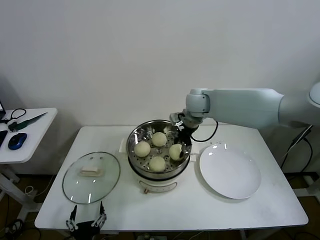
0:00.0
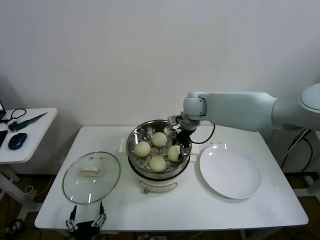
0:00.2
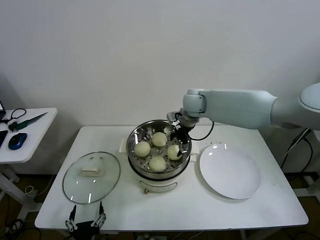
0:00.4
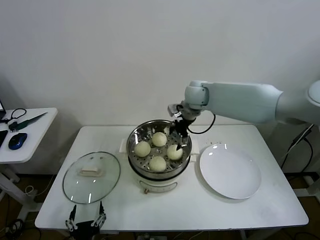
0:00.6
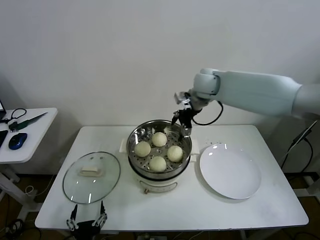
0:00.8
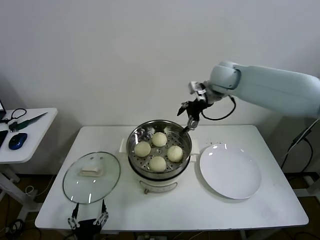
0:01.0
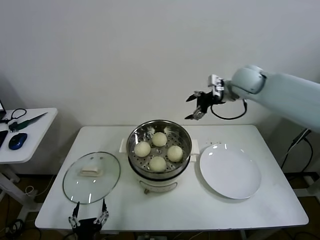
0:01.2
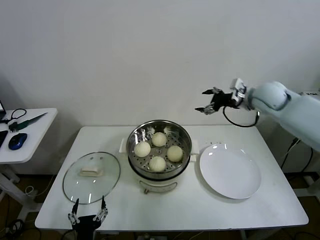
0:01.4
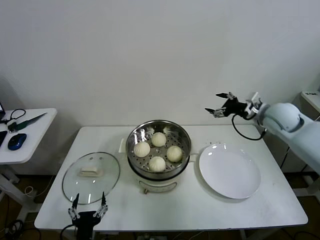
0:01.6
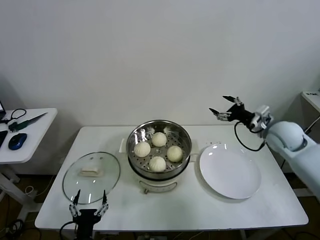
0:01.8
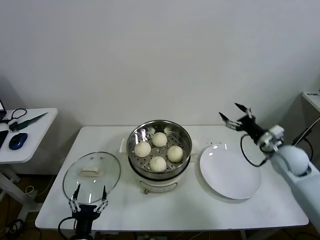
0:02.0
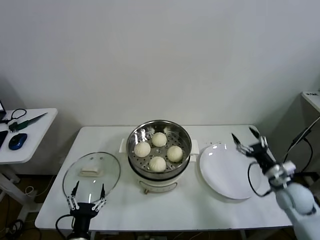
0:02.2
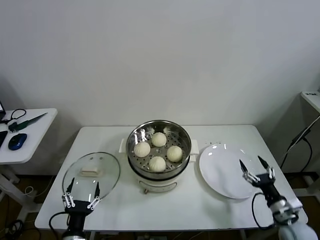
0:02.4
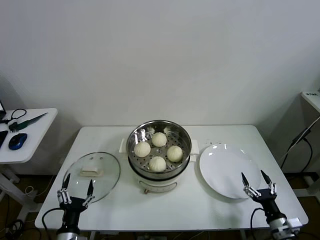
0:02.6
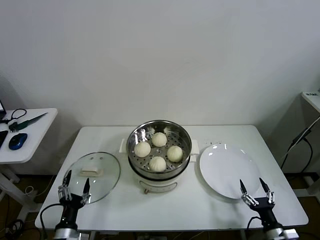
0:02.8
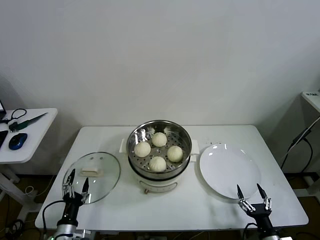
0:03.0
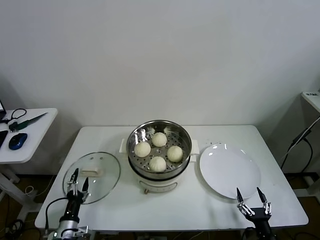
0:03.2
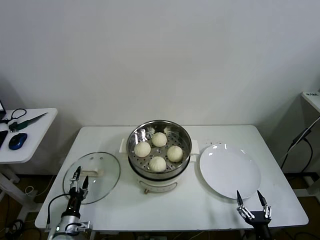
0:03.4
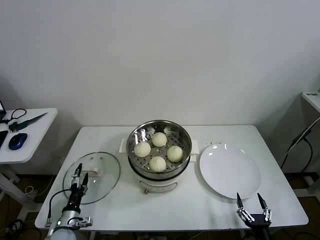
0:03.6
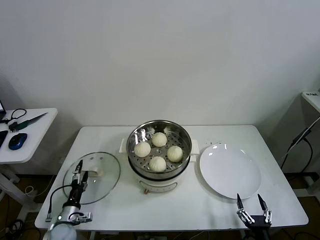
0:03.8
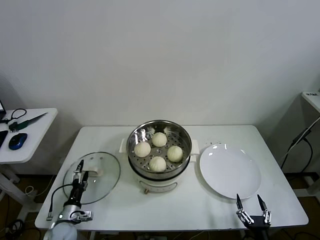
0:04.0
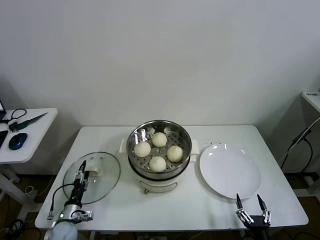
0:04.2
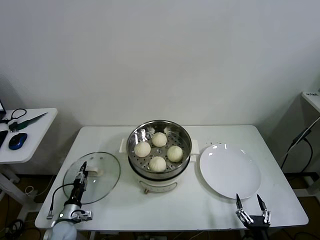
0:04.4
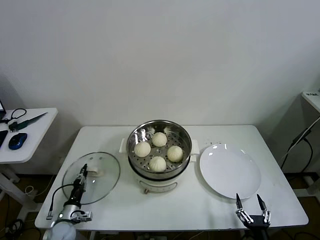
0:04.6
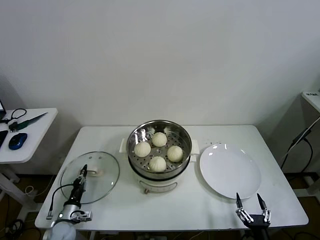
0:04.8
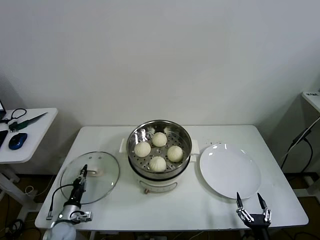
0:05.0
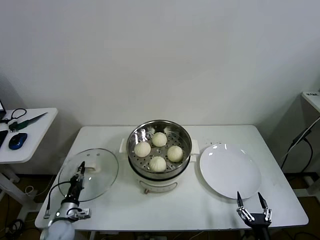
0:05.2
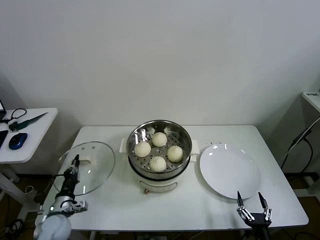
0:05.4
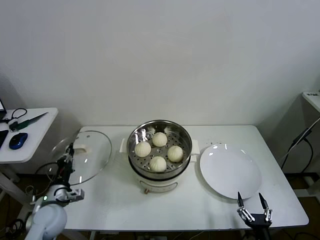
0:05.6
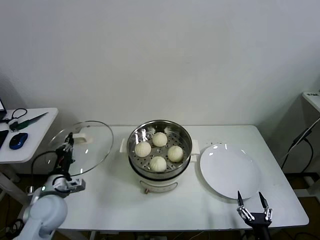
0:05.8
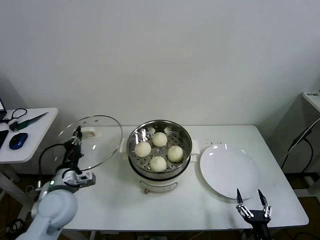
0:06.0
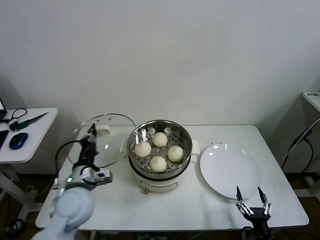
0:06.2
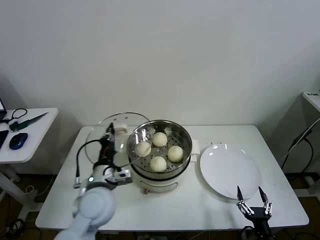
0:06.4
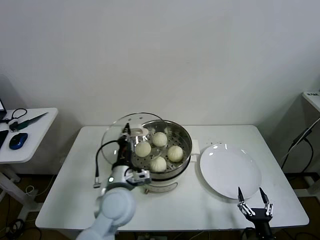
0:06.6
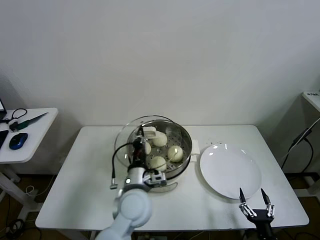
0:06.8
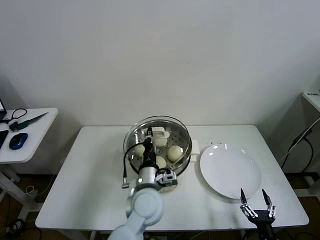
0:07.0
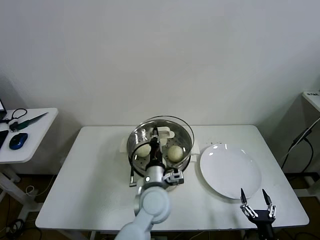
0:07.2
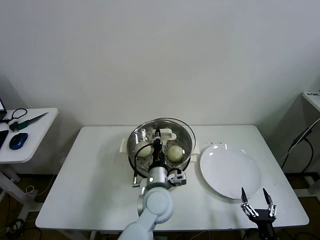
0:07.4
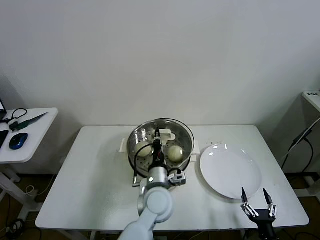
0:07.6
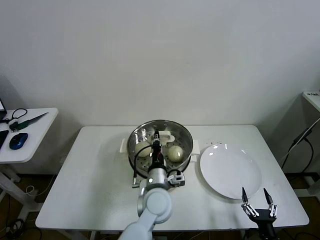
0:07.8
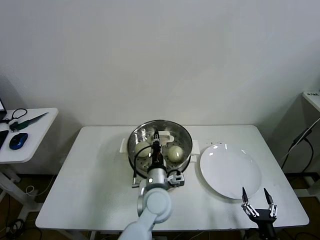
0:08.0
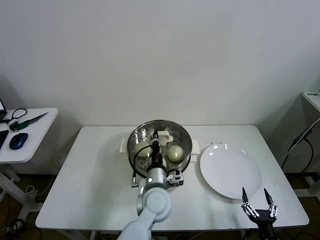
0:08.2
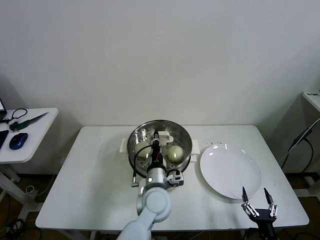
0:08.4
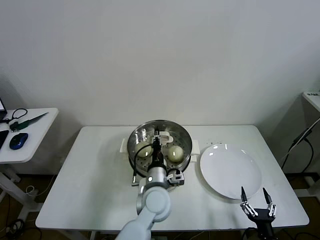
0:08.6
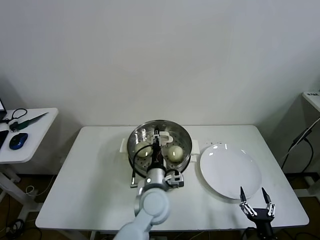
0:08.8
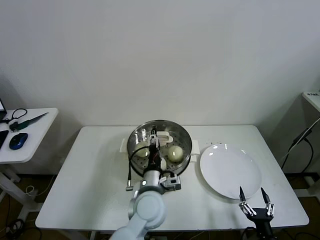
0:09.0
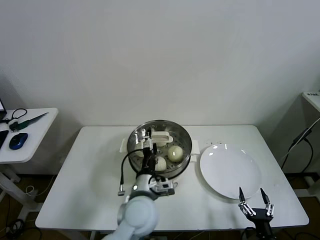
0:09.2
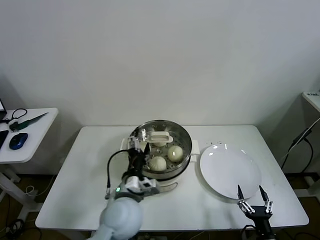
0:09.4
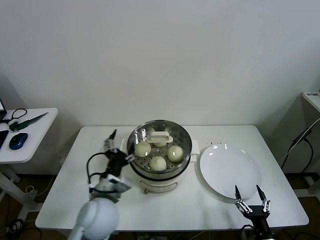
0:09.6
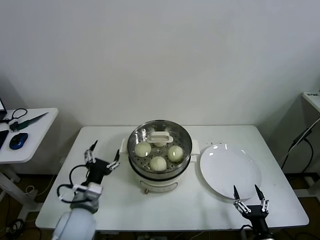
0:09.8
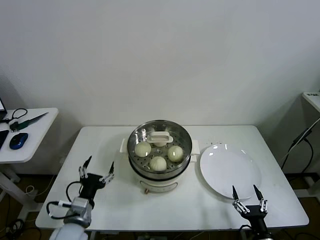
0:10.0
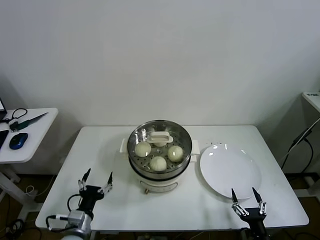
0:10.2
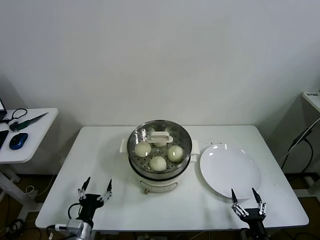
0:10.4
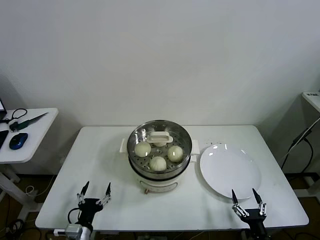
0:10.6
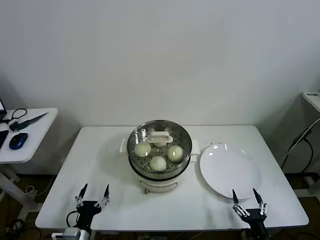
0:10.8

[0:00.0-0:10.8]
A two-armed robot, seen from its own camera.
Task of the whole recording: take steamed baozi put them in steamer then cover it.
Step, 0:00.6 to 0:04.6: Grasp the pot lid with left gripper.
Step, 0:04.8 to 0:08.6: Place the pot lid on the steamer with left gripper.
0:00.0 to 0:01.6: The right gripper heads to the right, covering approximately 25 cm, and opens.
0:01.6 to 0:03.0: The left gripper heads to the left, forward and downward, covering approximately 15 cm, while the right gripper goes approximately 50 cm backward and downward.
0:03.0 to 0:04.6: The left gripper travels forward, downward and to the left by approximately 10 cm, and closes, while the right gripper changes place by roughly 5 cm.
0:04.6 to 0:06.2: The left gripper goes some 30 cm upward and to the right.
0:06.2 to 0:07.8: The left gripper travels to the right by roughly 25 cm.
0:07.8 to 0:09.2: The left gripper ends up approximately 5 cm from where it was, and opens its fingers.
0:09.2 to 0:10.8: The left gripper moves to the left, downward and backward, roughly 30 cm.

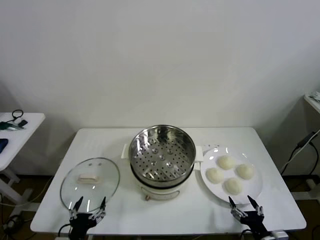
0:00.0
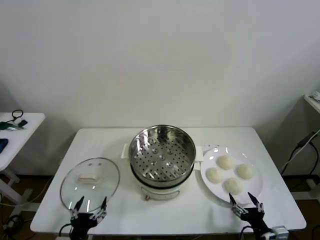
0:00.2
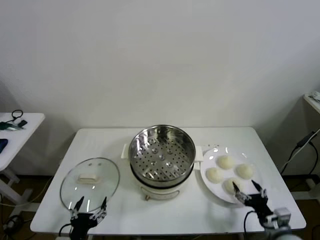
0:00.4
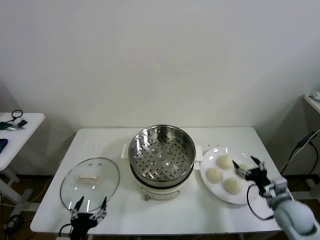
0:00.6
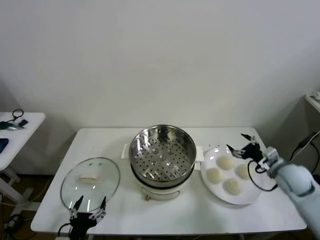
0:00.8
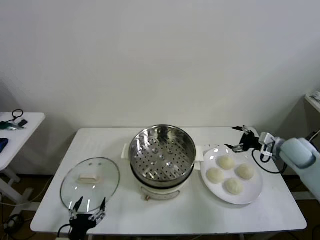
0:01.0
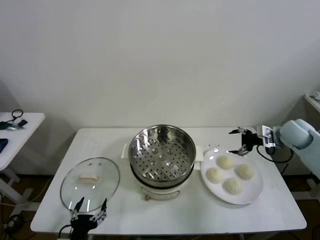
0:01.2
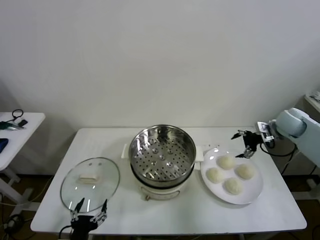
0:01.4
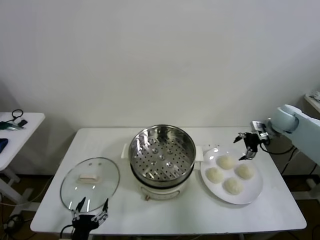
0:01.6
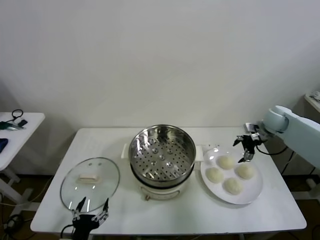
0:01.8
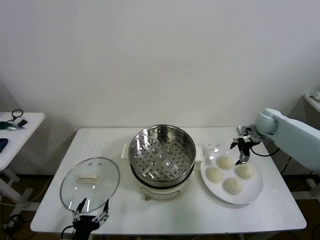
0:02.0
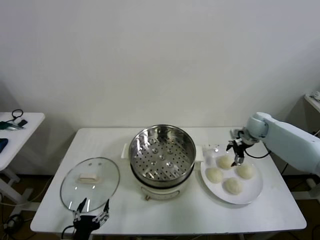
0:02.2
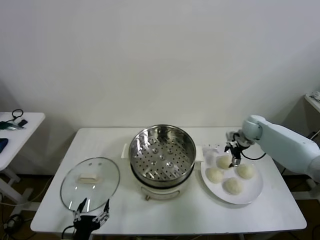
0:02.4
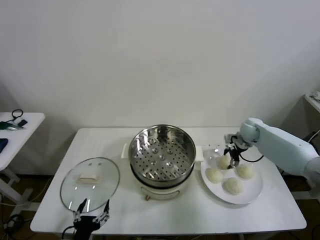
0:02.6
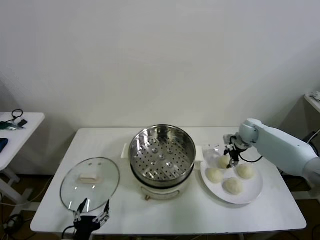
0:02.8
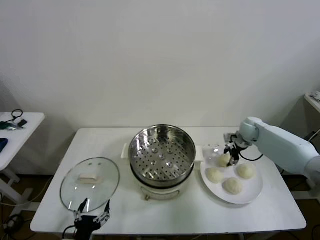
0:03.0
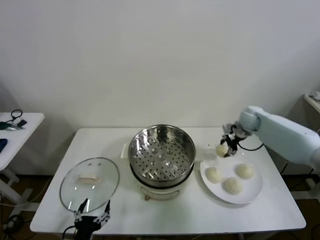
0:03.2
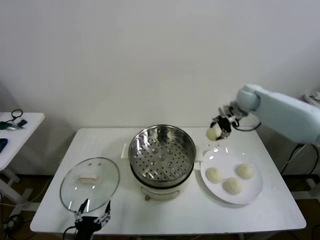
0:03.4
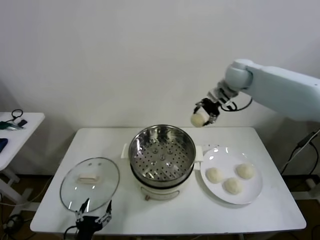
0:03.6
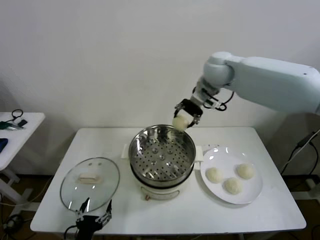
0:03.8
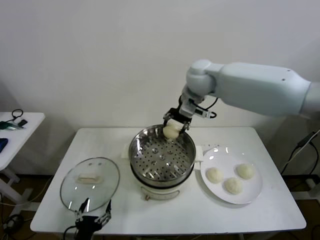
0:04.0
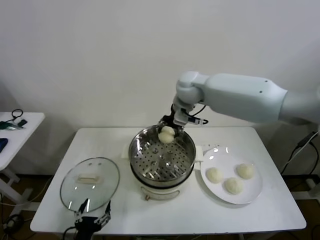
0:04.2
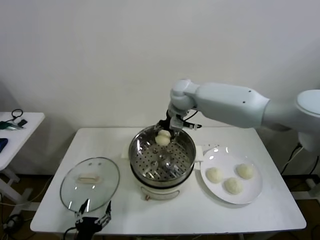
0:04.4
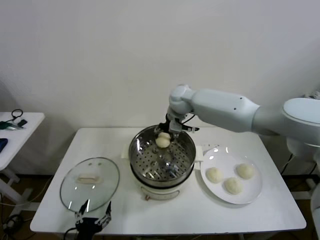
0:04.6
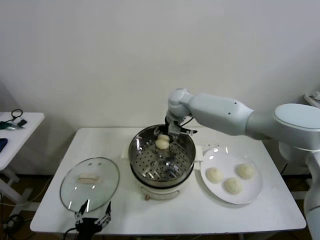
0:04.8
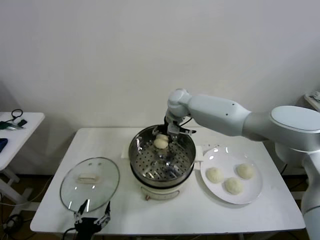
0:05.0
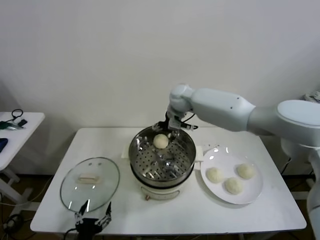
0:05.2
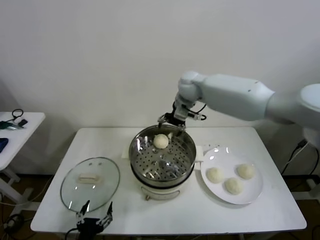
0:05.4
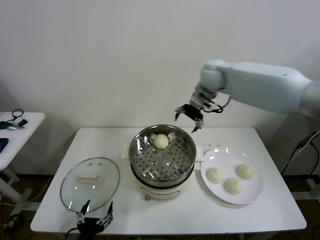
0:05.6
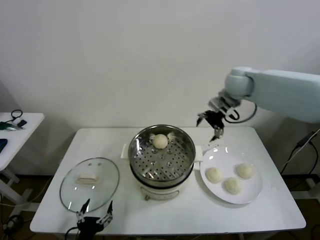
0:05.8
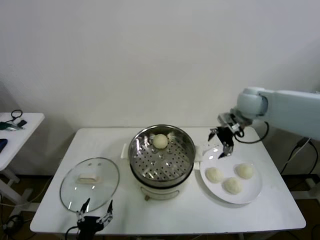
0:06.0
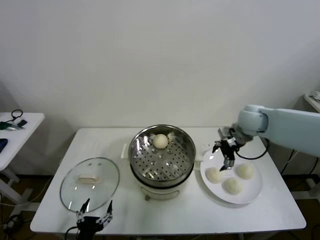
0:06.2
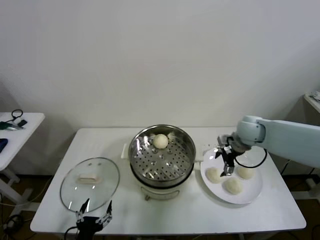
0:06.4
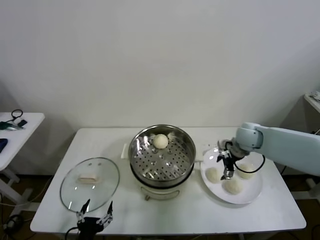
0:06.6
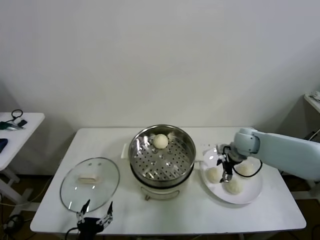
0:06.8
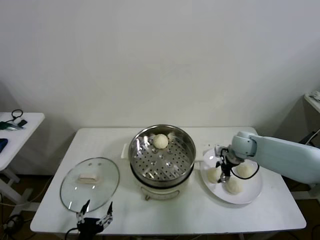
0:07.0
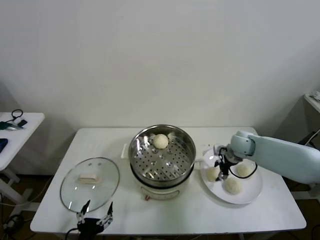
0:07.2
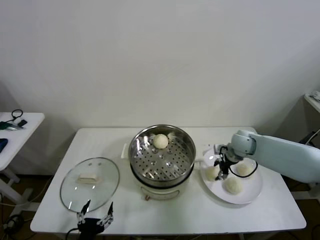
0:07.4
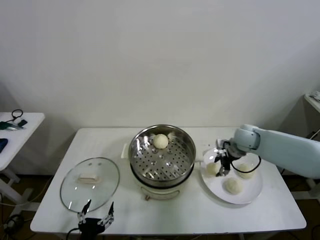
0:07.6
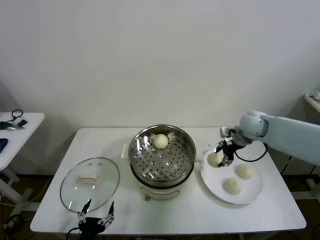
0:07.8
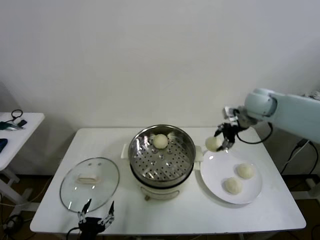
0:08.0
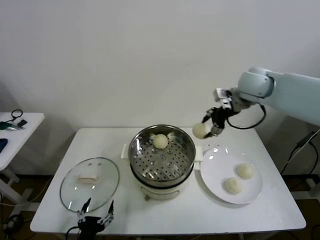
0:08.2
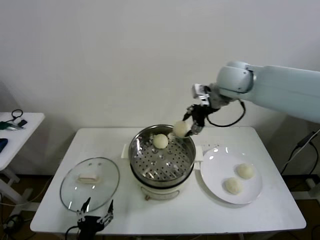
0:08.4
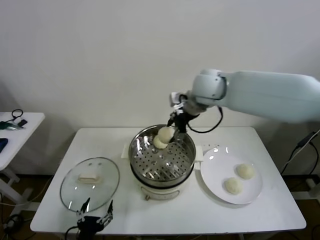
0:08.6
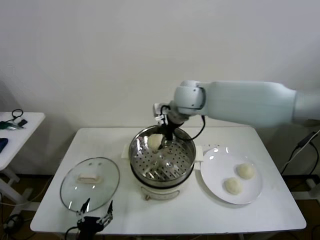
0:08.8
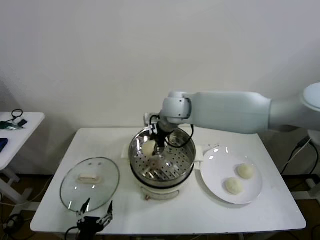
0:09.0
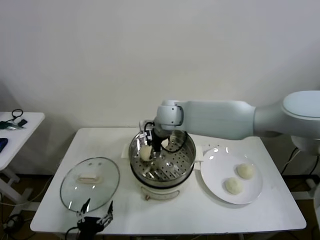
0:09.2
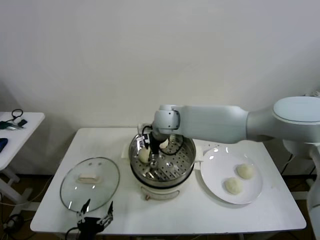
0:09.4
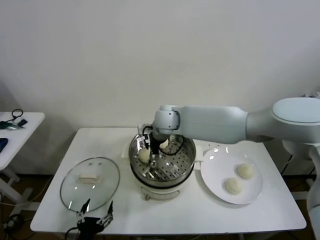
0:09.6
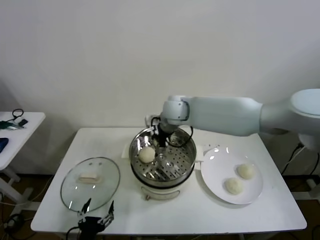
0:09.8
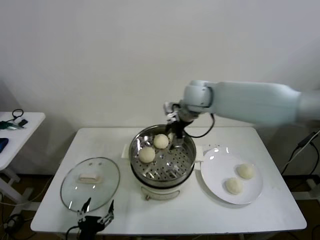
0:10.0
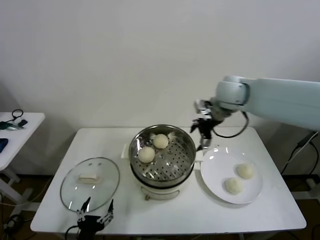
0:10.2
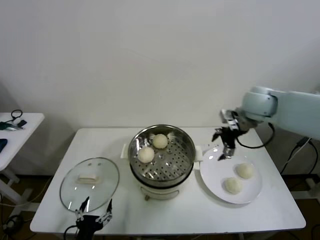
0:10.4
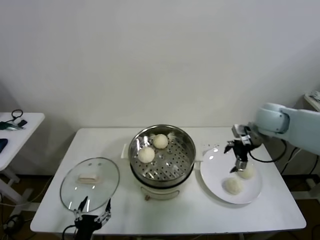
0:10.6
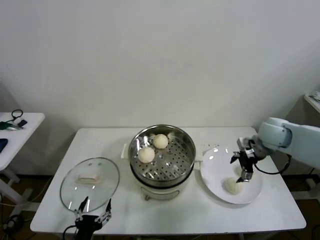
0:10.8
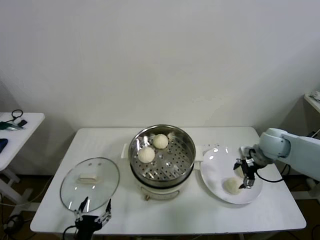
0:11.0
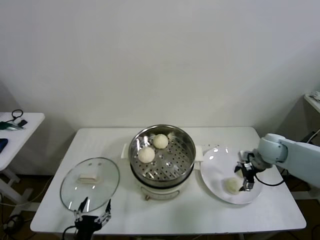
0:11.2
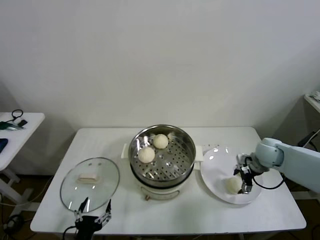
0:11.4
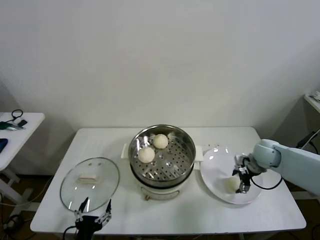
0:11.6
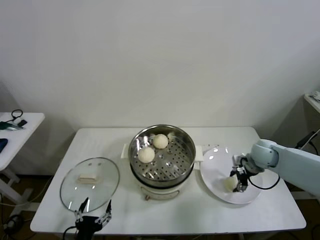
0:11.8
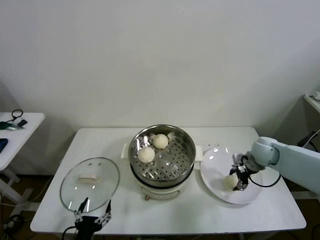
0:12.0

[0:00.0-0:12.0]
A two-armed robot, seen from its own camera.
Task of the whole recording: take steamed baozi put them in steamer then cover it.
Step, 0:00.0 to 0:02.8: Grasp the baozi in the plate with right gripper.
Step, 0:03.0 to 0:05.2: Place the baozi on the steamer with right gripper.
Step, 0:05.4 to 0:07.4: Grasp the baozi in the plate with right gripper.
Step, 0:07.6 to 0:09.6: Place the baozi on the steamer with right gripper.
Step, 0:09.8 to 0:11.8: Grasp the baozi in the plate with right gripper.
0:01.6 to 0:03.0: The right gripper moves to the left and downward, approximately 10 cm, and closes.
0:03.0 to 0:04.4: The right gripper heads to the left and upward, covering about 30 cm.
0:04.4 to 0:06.0: The right gripper is displaced to the right by roughly 25 cm, and opens.
0:06.0 to 0:07.6: The right gripper goes approximately 10 cm downward, and closes.
0:07.6 to 0:09.0: The right gripper travels to the left and upward by roughly 30 cm.
0:09.0 to 0:10.4: The right gripper heads to the right, covering approximately 25 cm, and opens.
0:10.4 to 0:12.0: The right gripper heads downward, covering some 15 cm, and closes.
